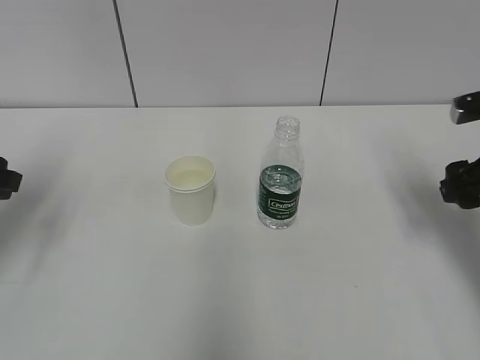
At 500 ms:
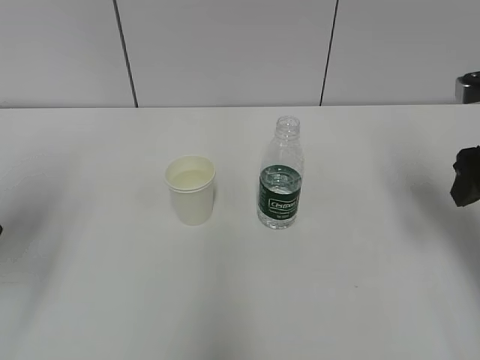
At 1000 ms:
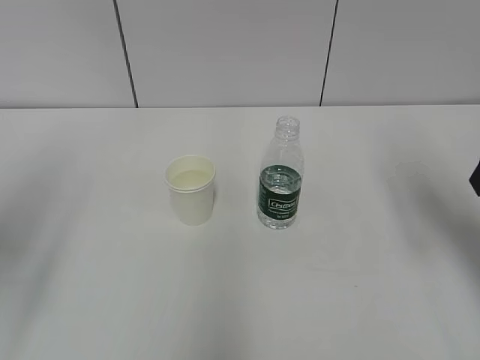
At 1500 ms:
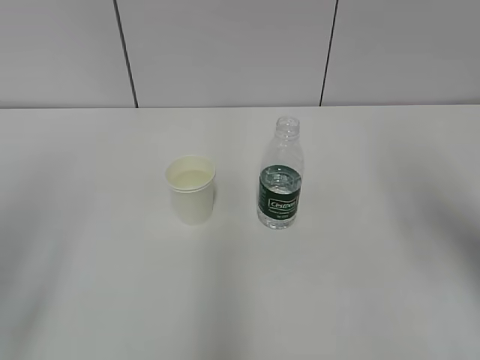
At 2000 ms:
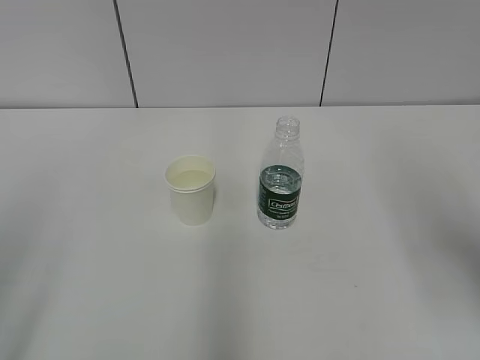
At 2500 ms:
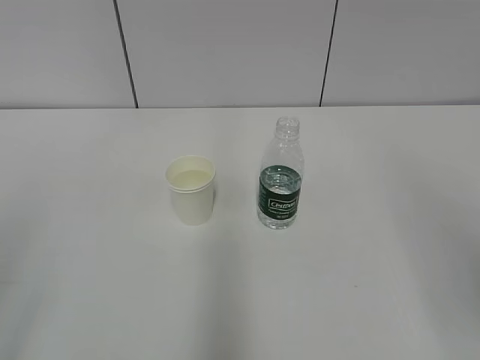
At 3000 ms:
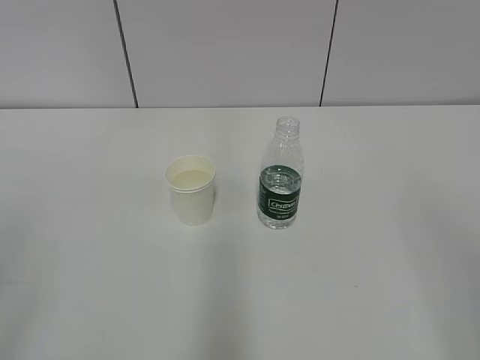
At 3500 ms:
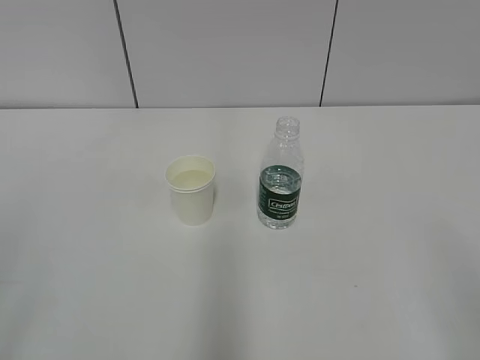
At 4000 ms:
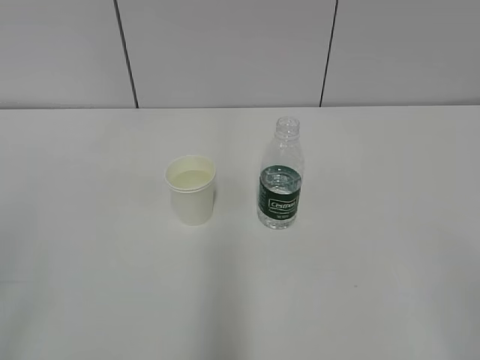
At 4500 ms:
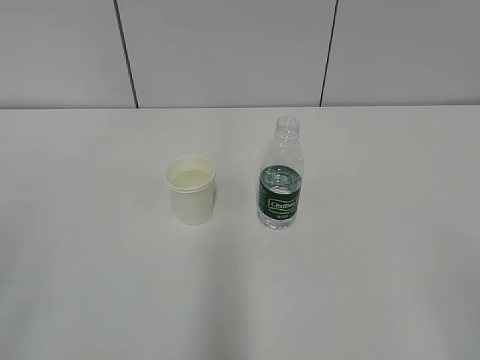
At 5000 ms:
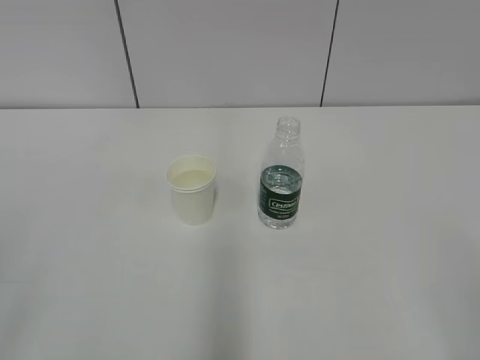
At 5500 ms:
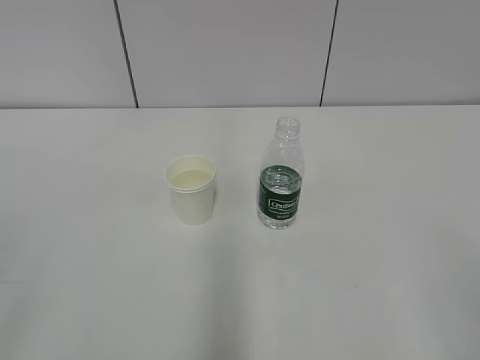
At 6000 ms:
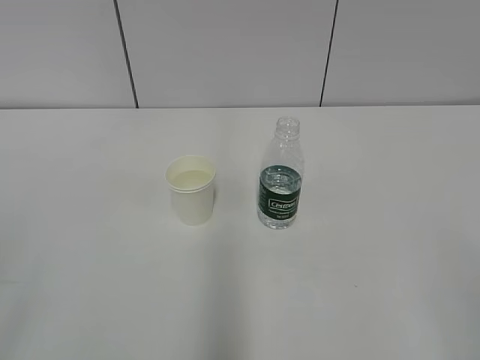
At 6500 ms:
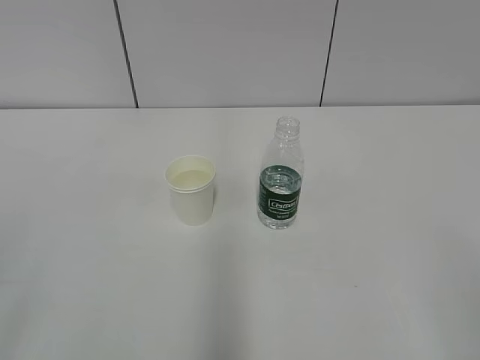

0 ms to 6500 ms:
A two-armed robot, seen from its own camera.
0 ms to 2000 ms: The left gripper is displaced backward by approximately 20 cm. The right gripper heads upward and backward, covering about 20 cm.
2000 ms to 4500 ms: The right gripper shifts approximately 20 cm backward and downward.
